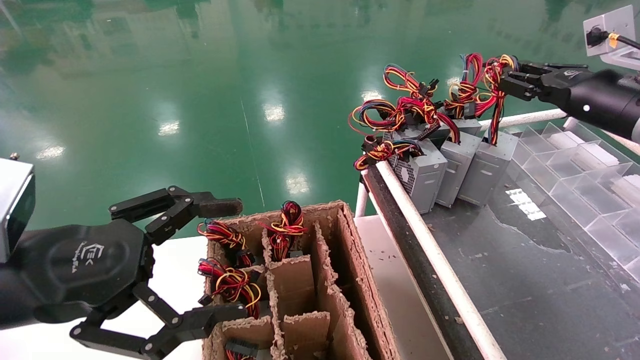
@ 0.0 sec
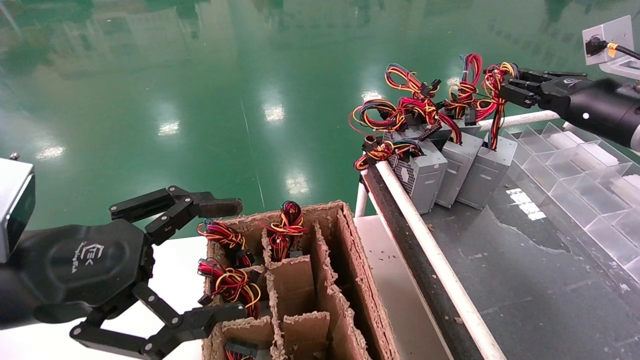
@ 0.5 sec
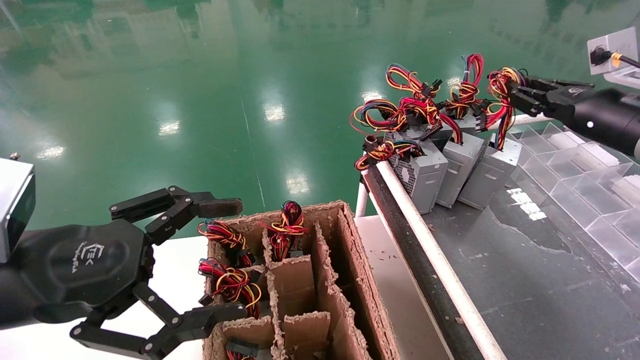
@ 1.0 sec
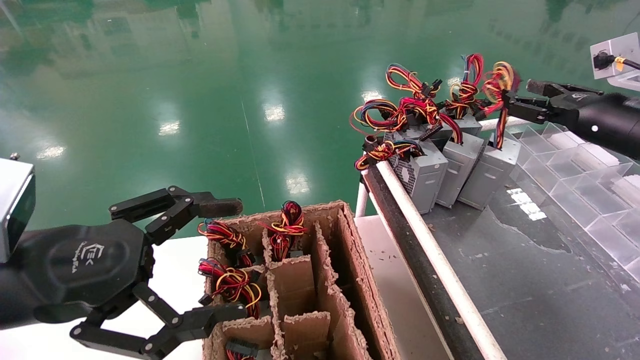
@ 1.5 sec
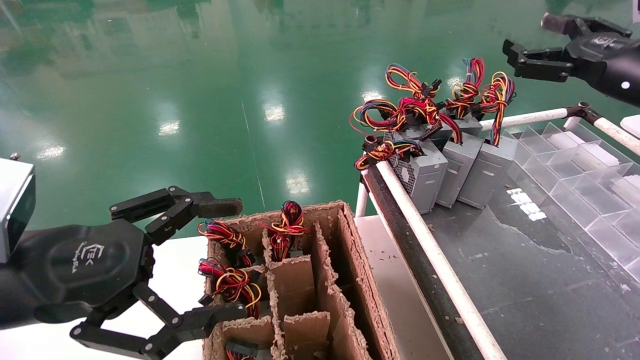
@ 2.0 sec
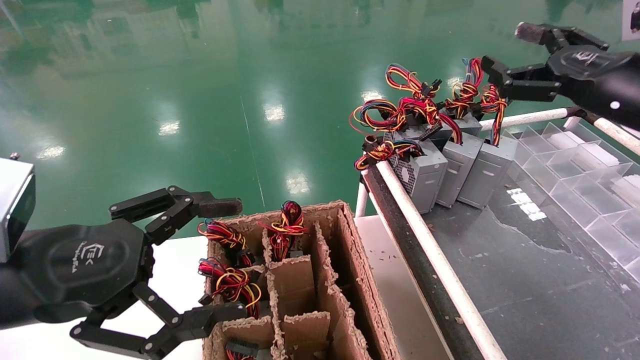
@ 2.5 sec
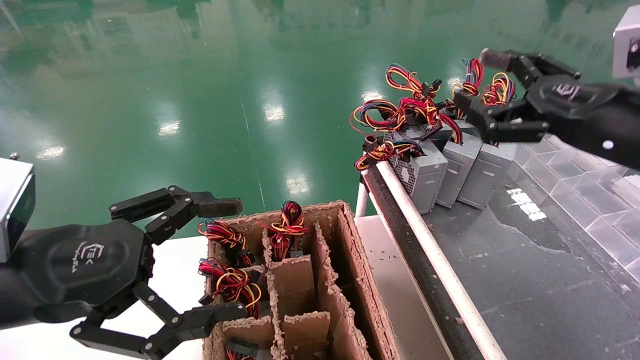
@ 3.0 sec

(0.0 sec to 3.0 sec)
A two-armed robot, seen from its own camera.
0.0 sec - 1.5 sec: The right gripper opens its fingers.
1.5 sec - 3.0 sec: The right gripper heads backward and to the left, covering some 10 cm, and opens.
